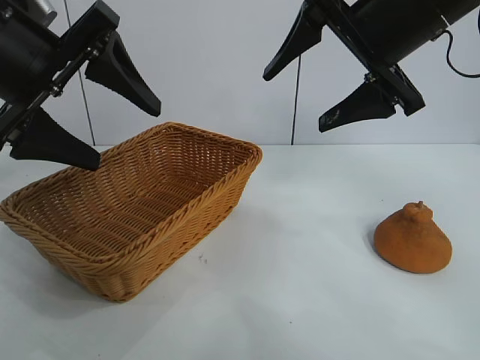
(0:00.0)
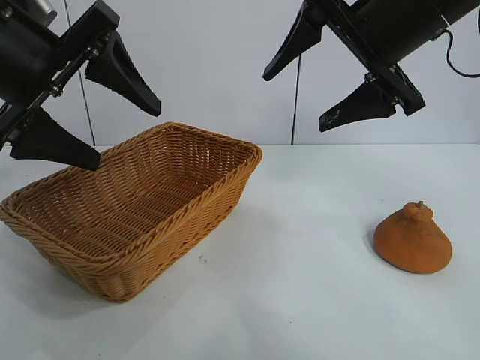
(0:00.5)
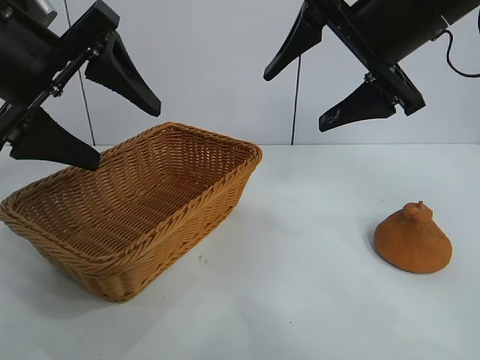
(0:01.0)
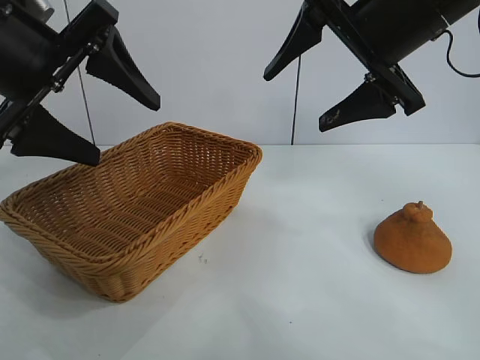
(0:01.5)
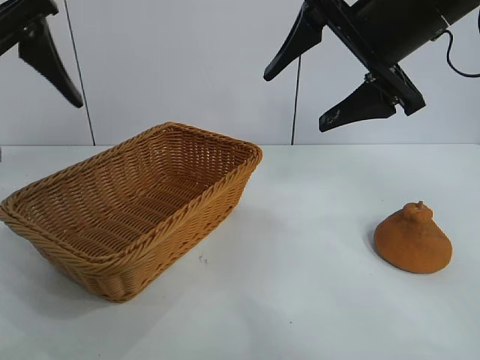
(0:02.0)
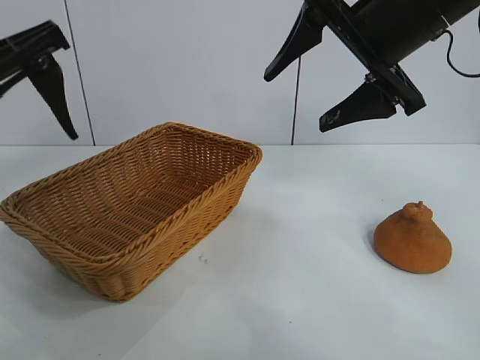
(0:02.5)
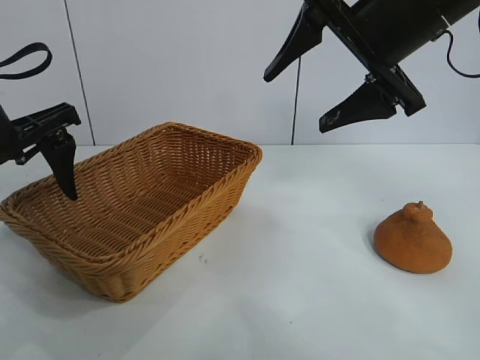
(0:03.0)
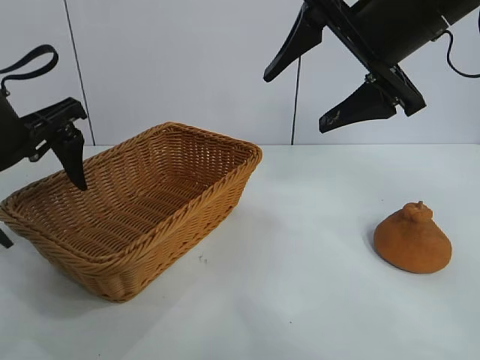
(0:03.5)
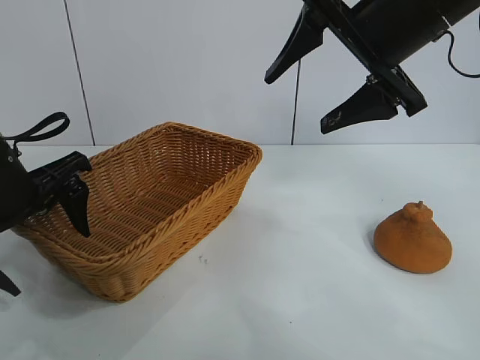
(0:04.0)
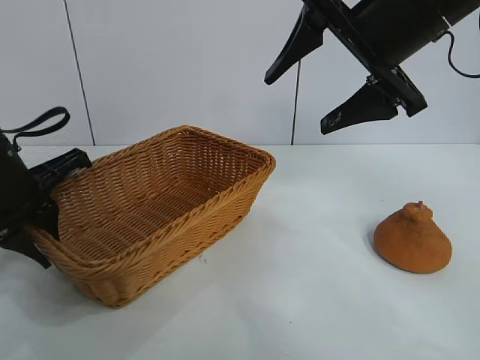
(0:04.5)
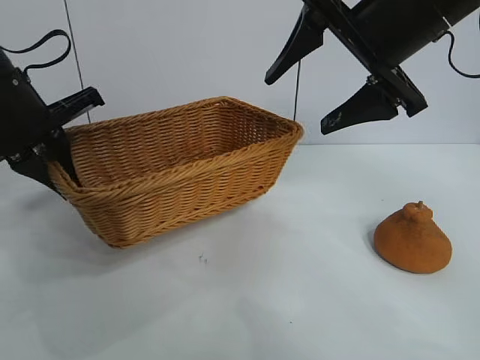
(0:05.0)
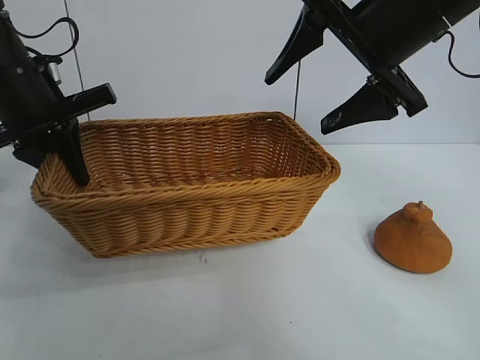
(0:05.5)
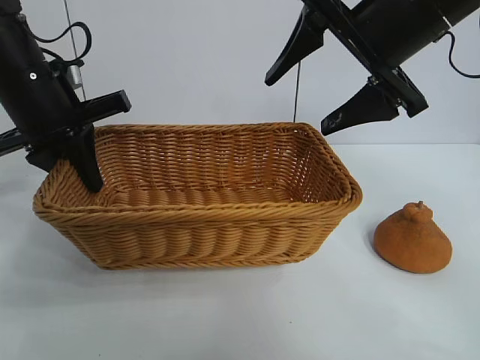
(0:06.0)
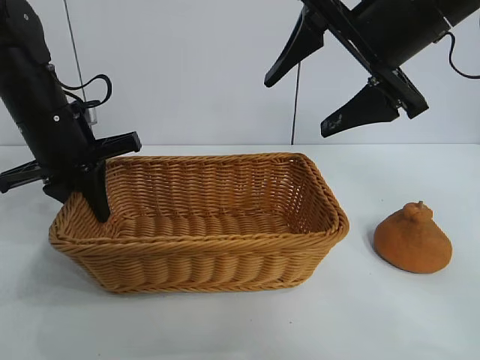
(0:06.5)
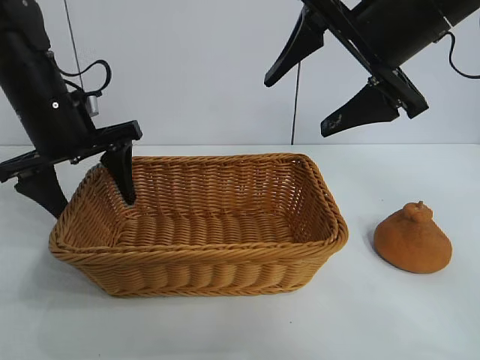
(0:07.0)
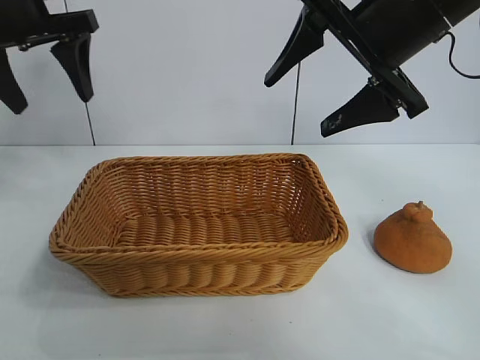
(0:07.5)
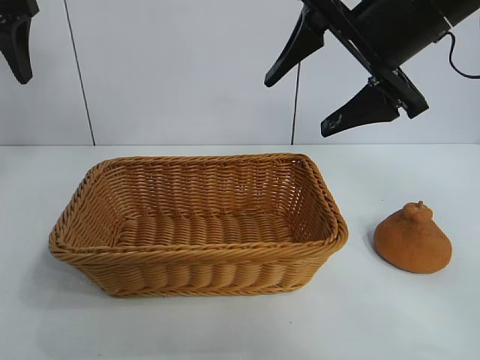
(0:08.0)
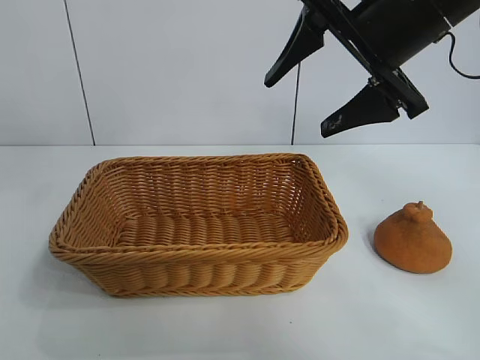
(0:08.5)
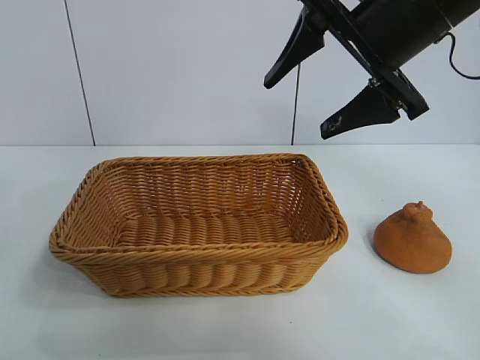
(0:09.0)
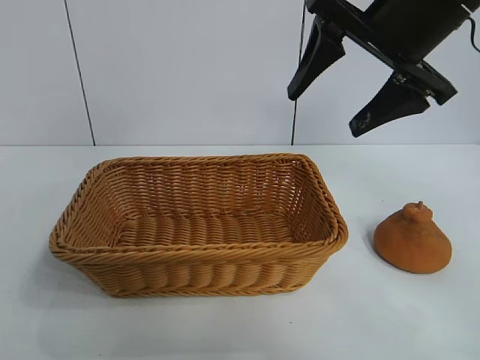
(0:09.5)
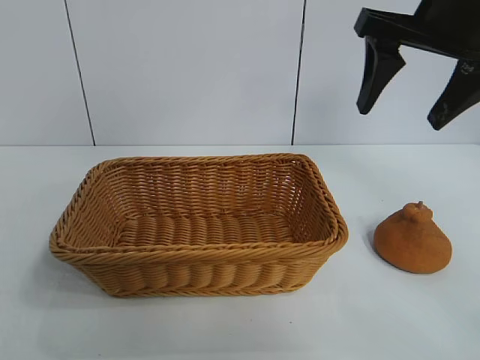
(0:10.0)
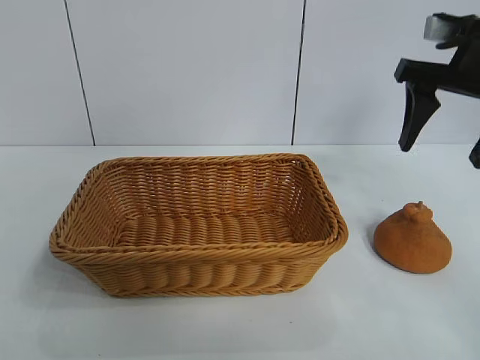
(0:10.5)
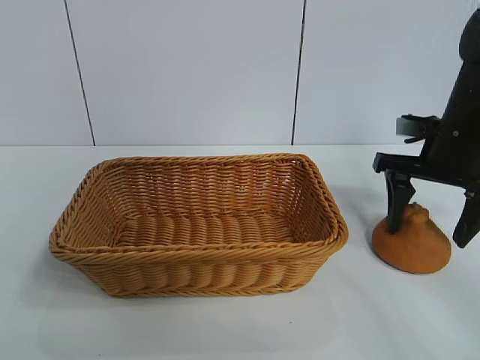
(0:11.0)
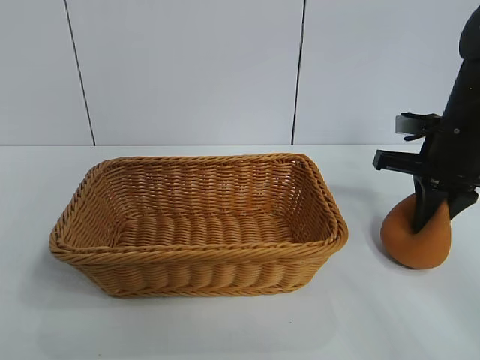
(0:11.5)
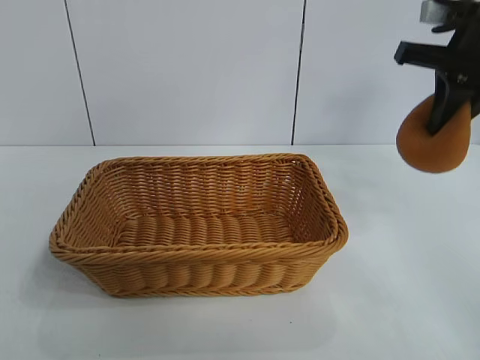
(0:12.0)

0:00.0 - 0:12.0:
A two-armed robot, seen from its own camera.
Task of the whole recording: pick up the orange and put it into the basket.
Step, 0:00.0 - 0:04.5: Grasp the basket with left gripper.
Step, 0:05.0 - 0:06.5: Place the basket in the center of view with left gripper.
Step, 0:07.0 - 0:11.0: Grasp the orange with right gripper.
